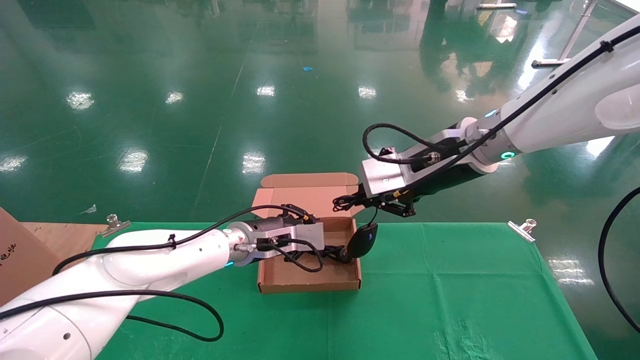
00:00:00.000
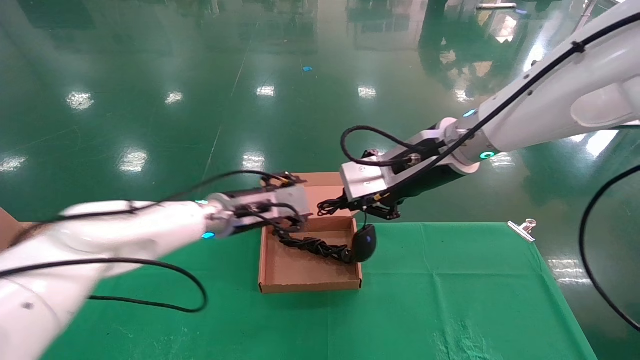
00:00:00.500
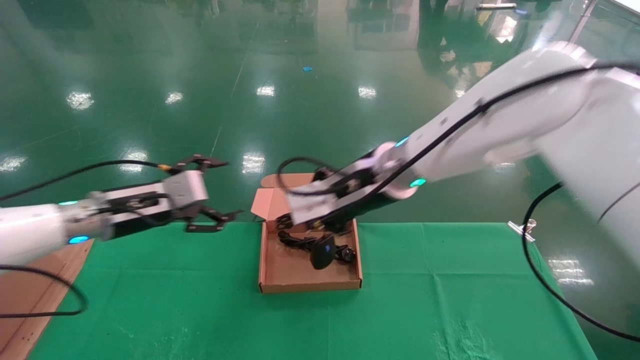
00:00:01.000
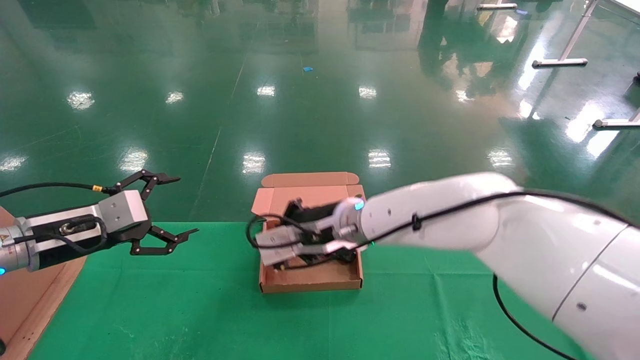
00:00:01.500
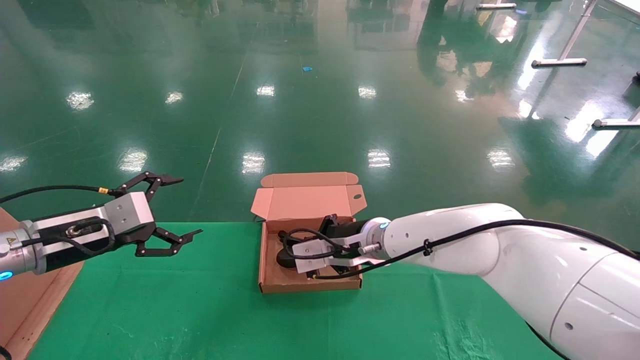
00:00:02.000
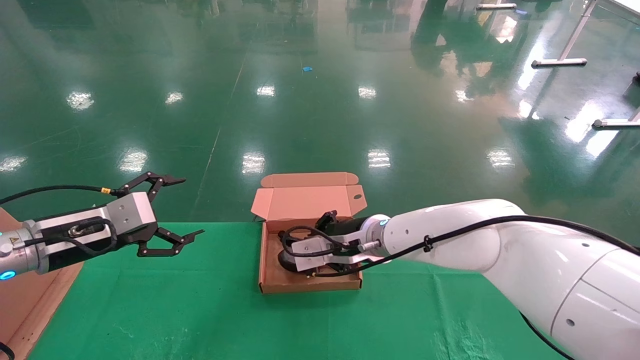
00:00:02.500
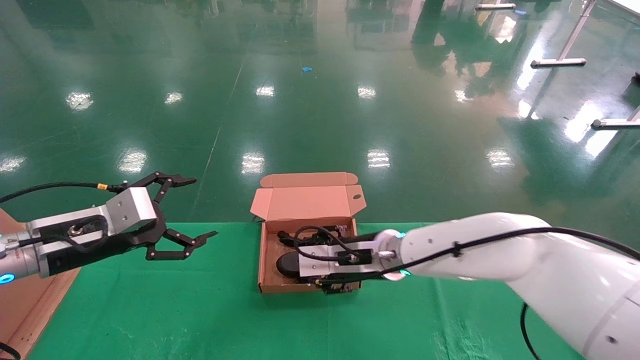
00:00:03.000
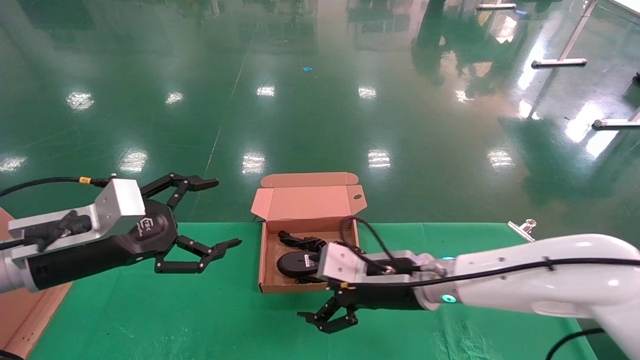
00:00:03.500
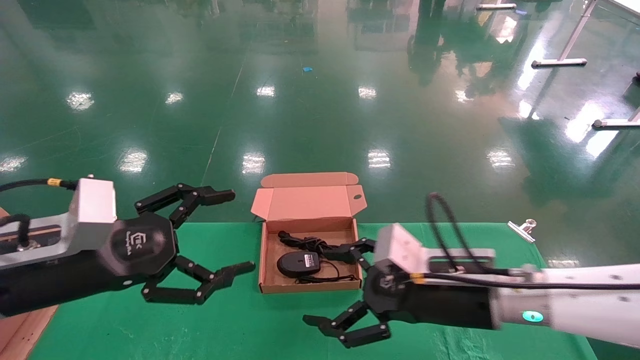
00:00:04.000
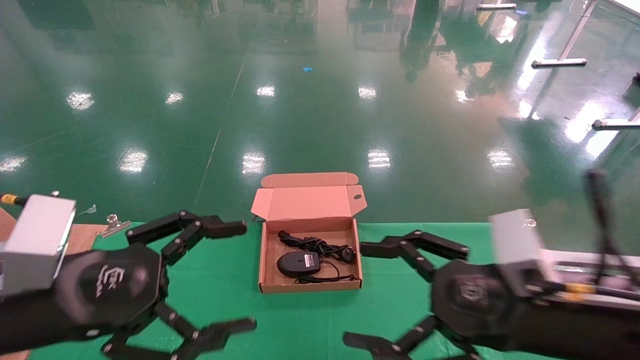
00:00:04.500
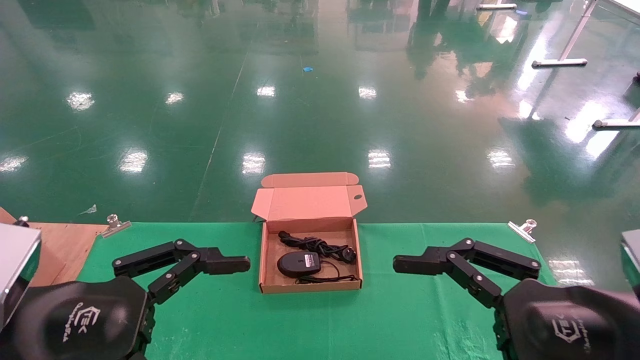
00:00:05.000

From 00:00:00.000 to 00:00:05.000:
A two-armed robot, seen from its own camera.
Step, from 00:00:00.000 to 00:00:02.000: Place the mouse and power cord into the box.
From 00:00:00.000 to 00:00:02.500: The left gripper shifts roughly 25 cm to the left and backward, and opens its fingers, while the right gripper moves downward and to the left, approximately 20 cm.
From 00:00:02.500 to 00:00:05.000: The right gripper shifts some 35 cm backward and to the right, and opens its fingers, while the left gripper shifts approximately 20 cm backward and to the right.
